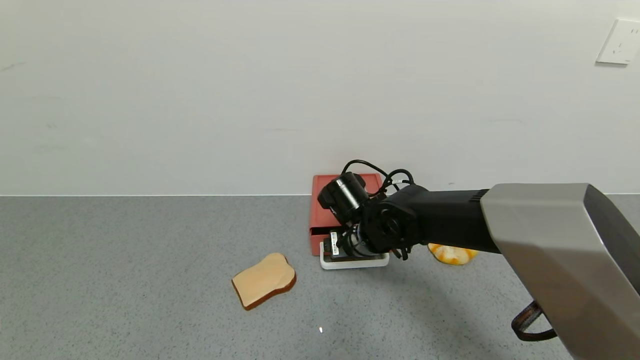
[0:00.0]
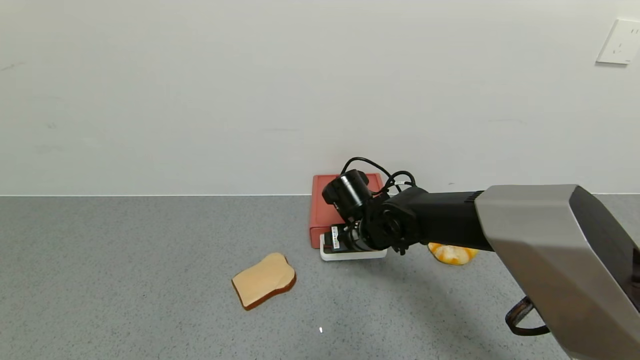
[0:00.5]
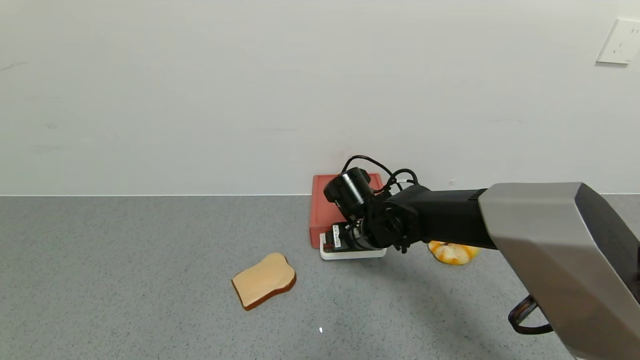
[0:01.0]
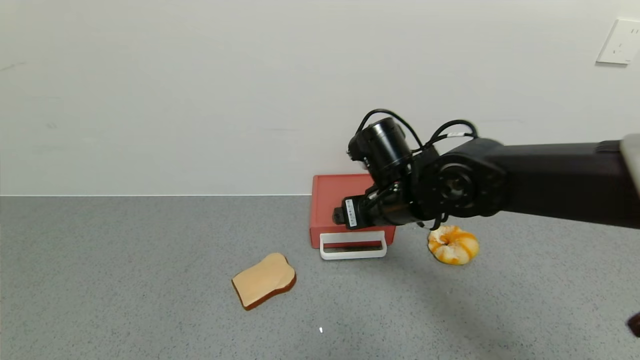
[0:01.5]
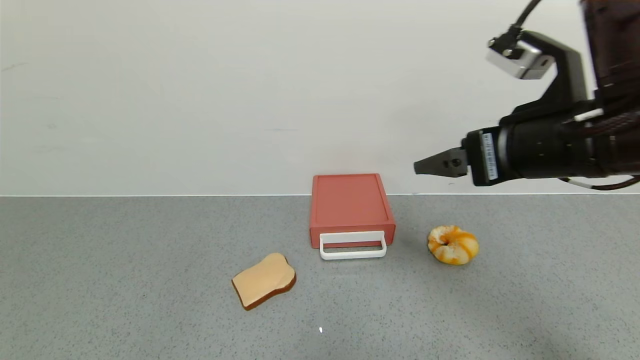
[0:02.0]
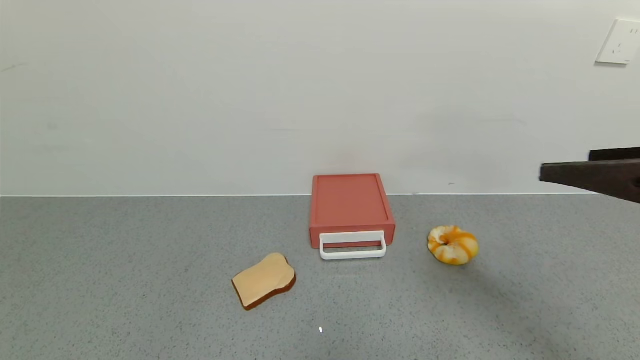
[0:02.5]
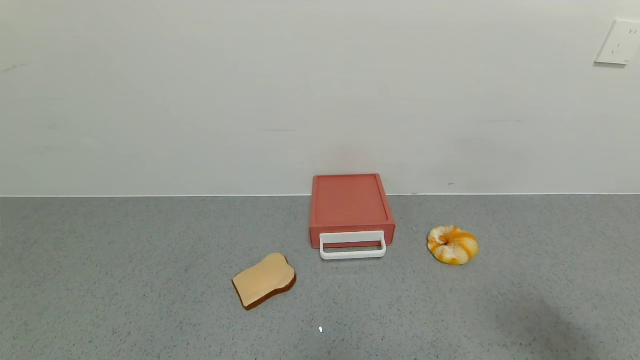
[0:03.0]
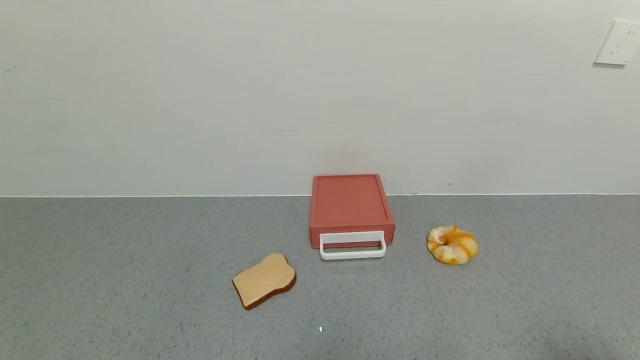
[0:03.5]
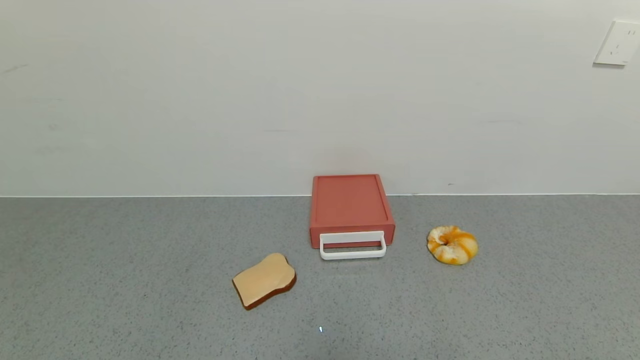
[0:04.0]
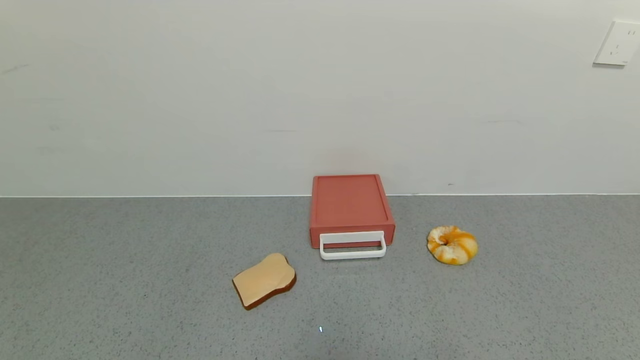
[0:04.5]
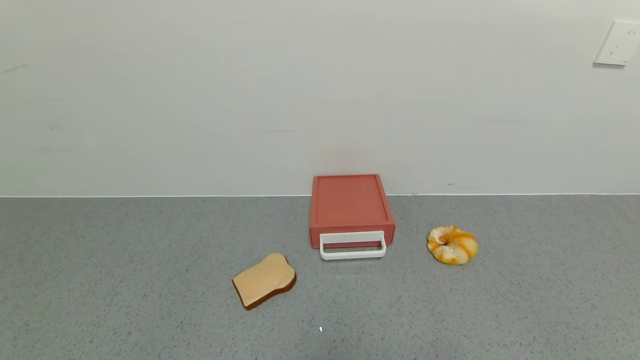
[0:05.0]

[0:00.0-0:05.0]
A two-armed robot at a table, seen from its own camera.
Task of the whole recording: use the gripper to open the drawer and close the red drawer.
0:00.0 to 0:02.5: The right gripper shifts some 40 cm to the right, backward and upward.
0:02.5 to 0:05.0: The right gripper travels downward and backward by about 30 cm.
